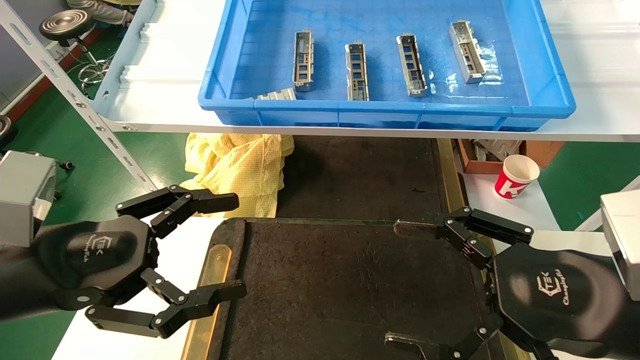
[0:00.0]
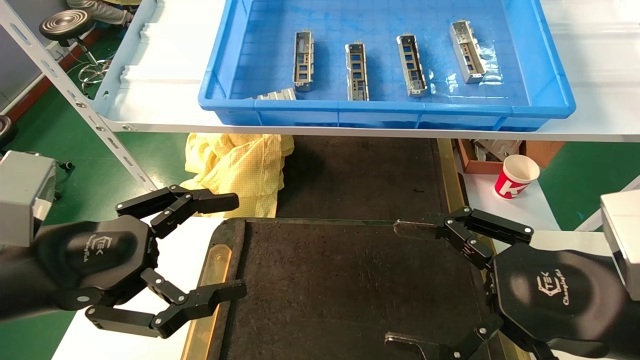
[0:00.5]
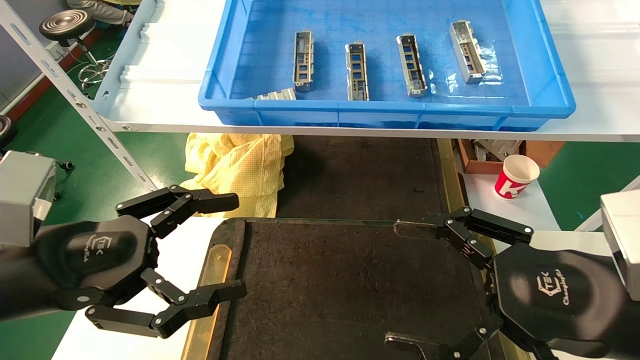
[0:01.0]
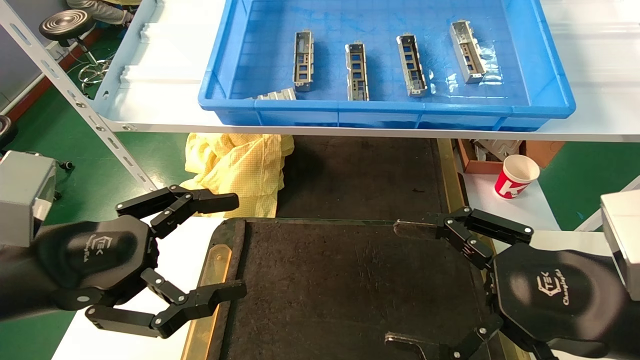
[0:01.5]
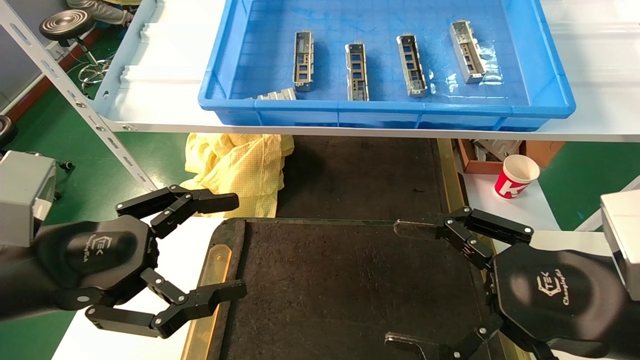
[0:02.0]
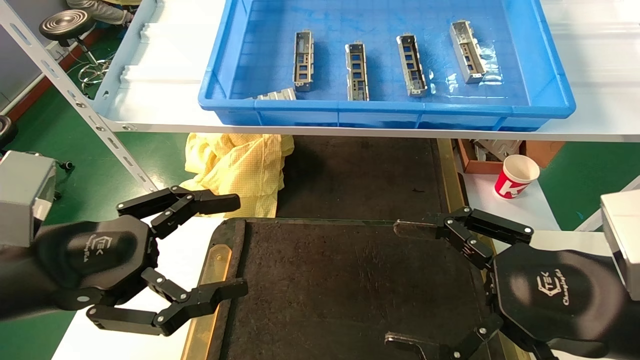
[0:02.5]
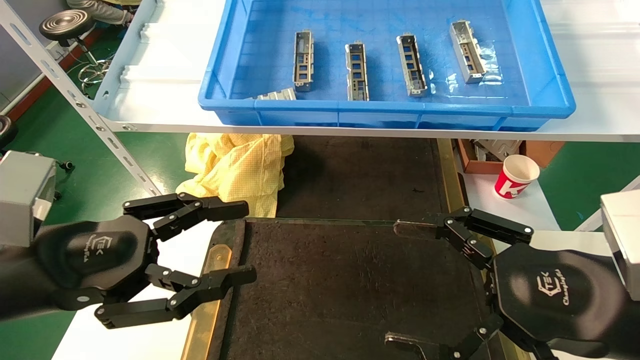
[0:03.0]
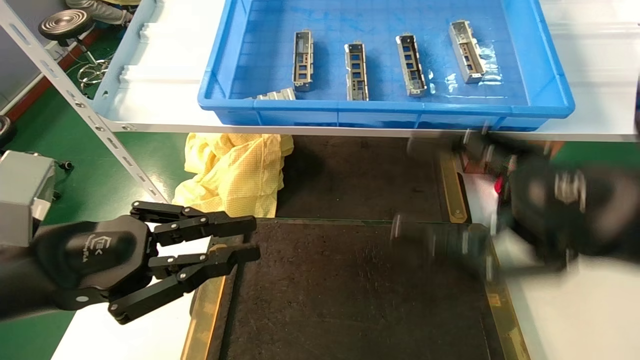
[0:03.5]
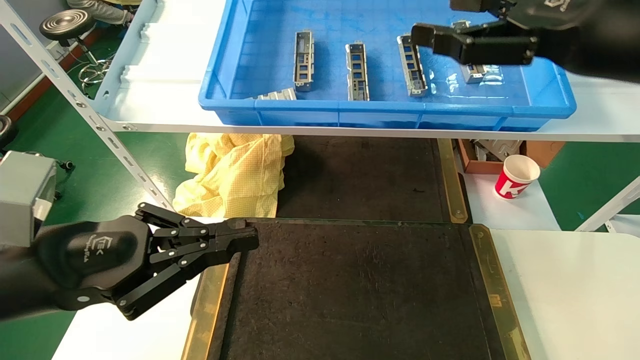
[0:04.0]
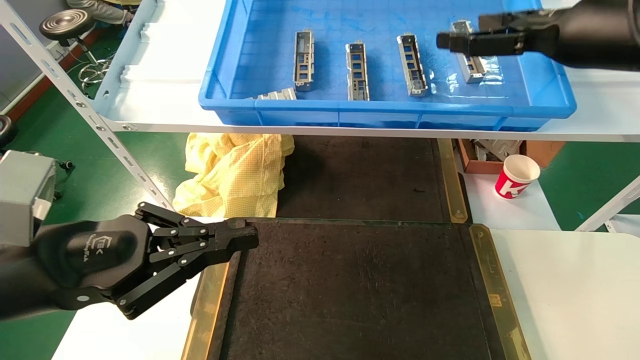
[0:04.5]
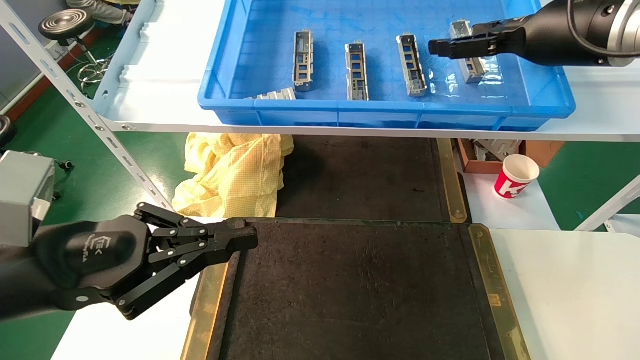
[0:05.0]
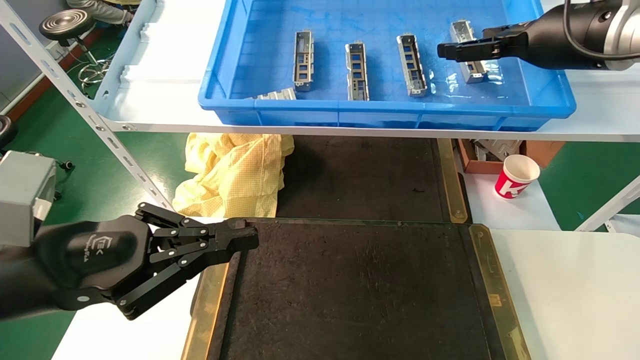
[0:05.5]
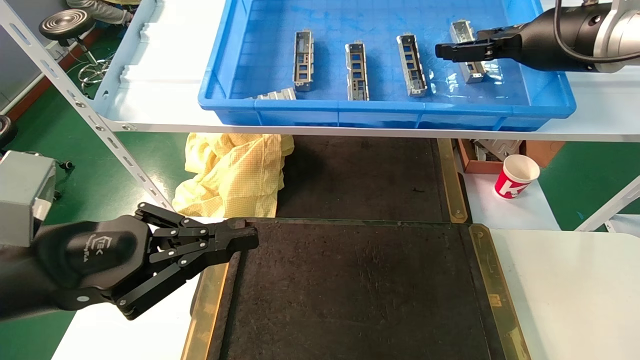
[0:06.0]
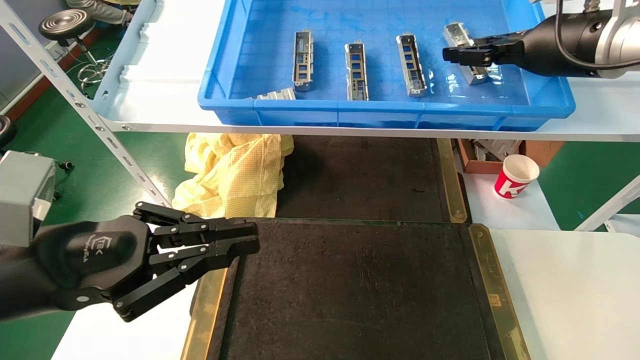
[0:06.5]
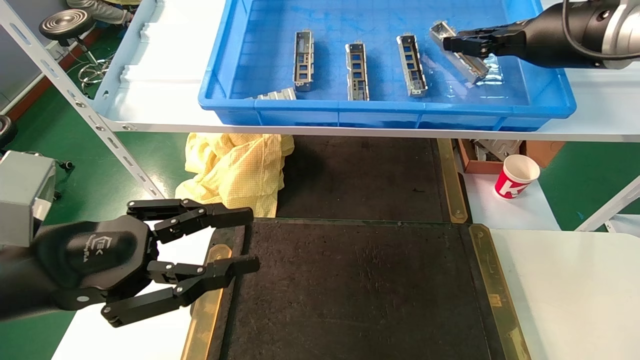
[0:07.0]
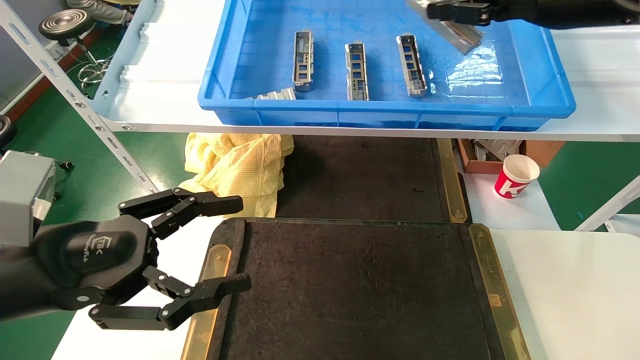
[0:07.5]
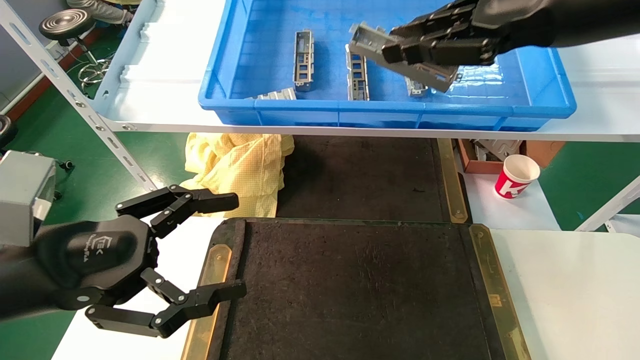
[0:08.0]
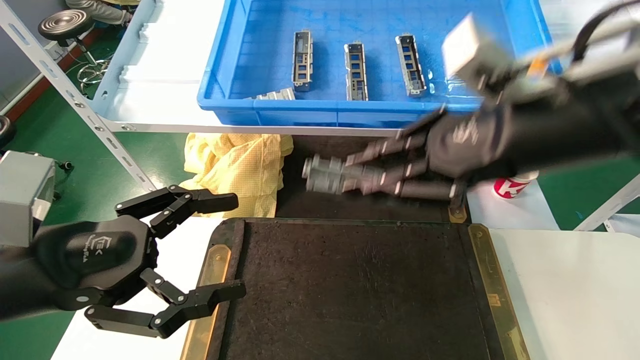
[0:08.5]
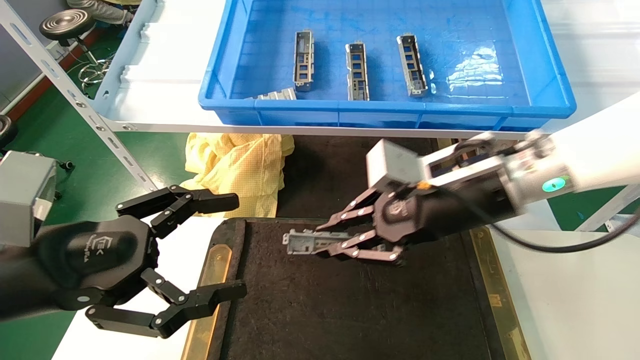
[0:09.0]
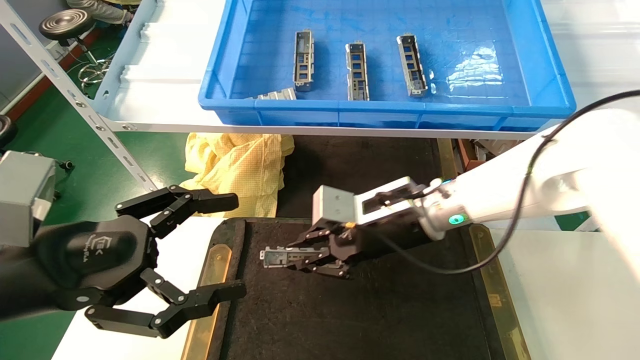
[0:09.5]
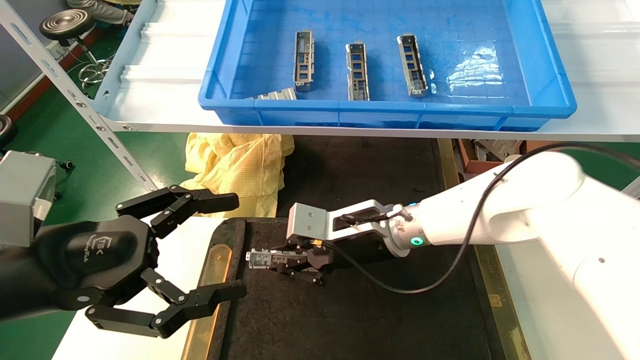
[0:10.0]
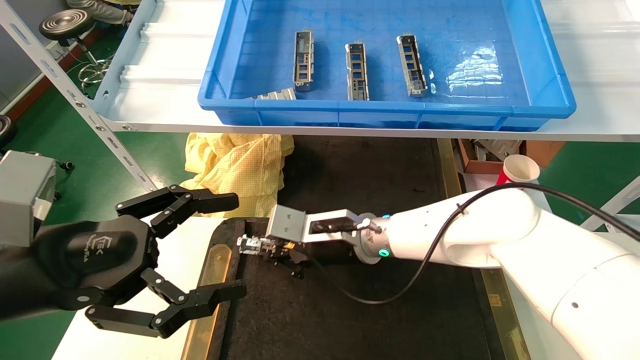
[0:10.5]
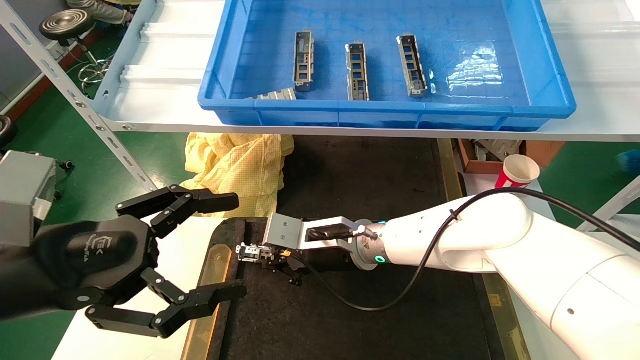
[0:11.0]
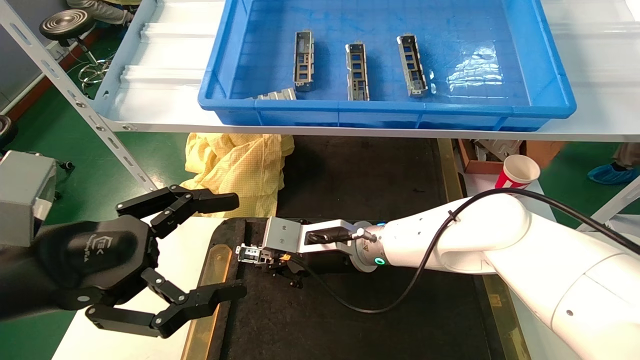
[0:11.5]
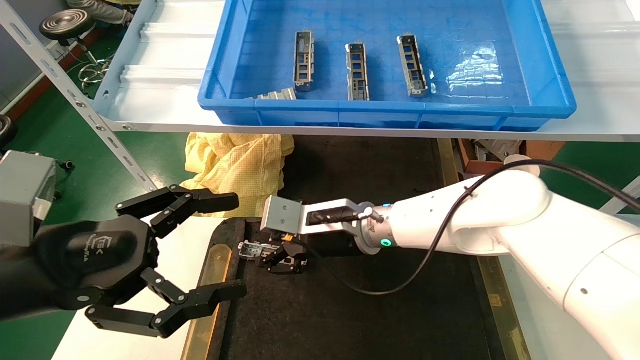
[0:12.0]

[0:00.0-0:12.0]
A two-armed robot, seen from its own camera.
Task of the whole recording: grasp the part and place them on the black container.
Step, 0:03.5 to 0:07.0: Pick up and lift the front USB bracket from the feeding area.
0:00.0 to 0:02.0: Both grippers stay put.
0:02.0 to 0:04.0: The left gripper closes its fingers. The right gripper moves upward and forward, roughly 20 cm.
0:04.0 to 0:06.0: The right gripper is displaced forward by approximately 10 cm.
0:06.0 to 0:08.0: The left gripper opens its fingers. Meanwhile the right gripper shifts roughly 15 cm backward and to the left, and closes its fingers.
0:08.0 to 0:10.0: The right gripper is displaced downward, to the left and forward by approximately 35 cm.
0:10.0 to 0:12.0: The grippers move only a little.

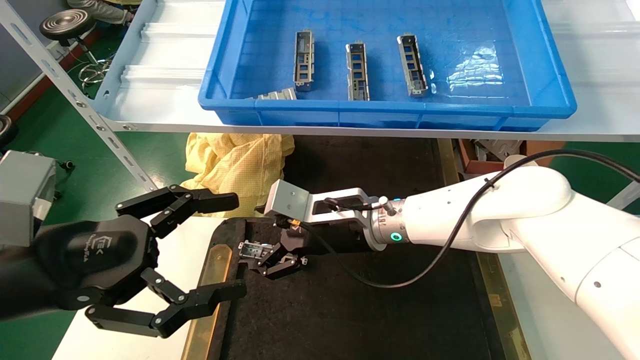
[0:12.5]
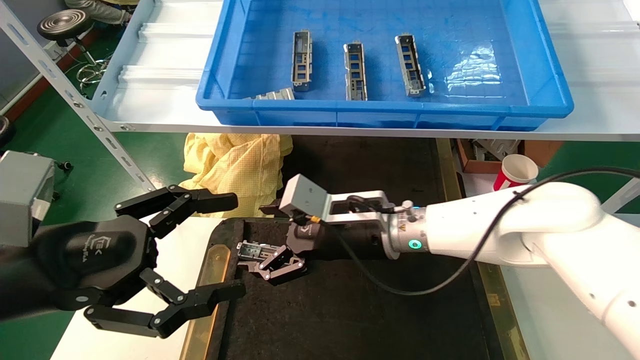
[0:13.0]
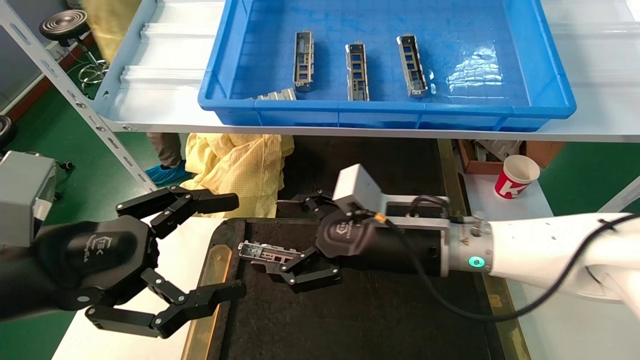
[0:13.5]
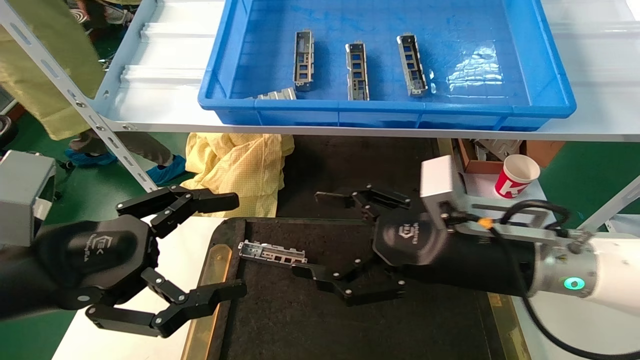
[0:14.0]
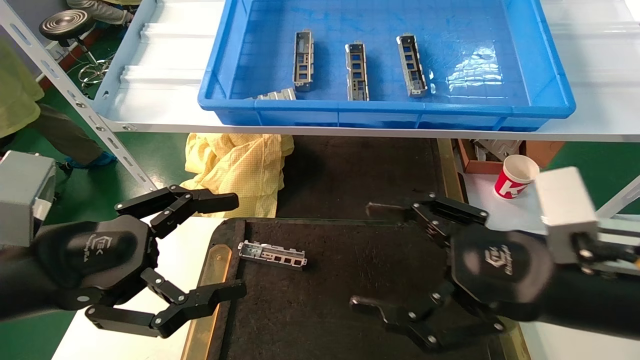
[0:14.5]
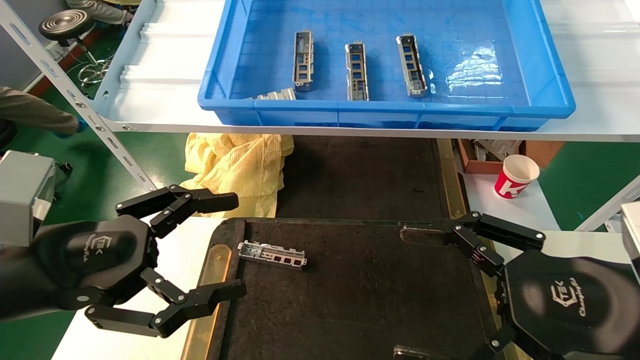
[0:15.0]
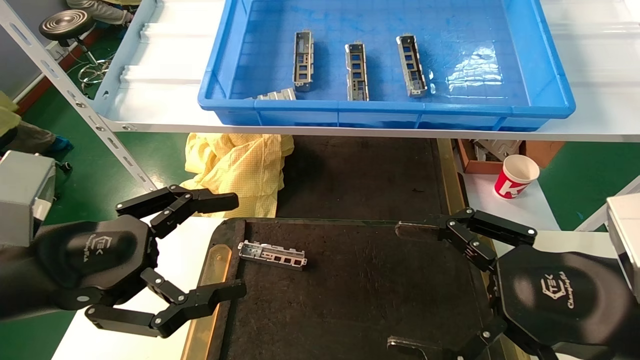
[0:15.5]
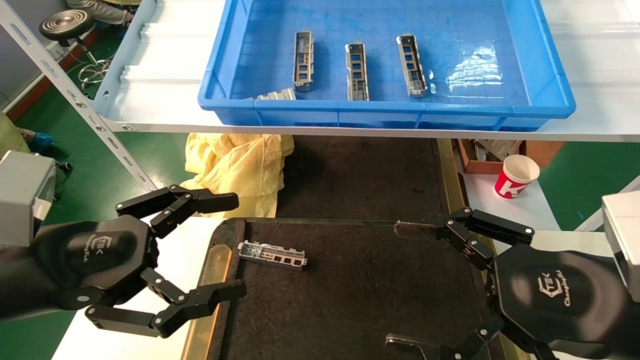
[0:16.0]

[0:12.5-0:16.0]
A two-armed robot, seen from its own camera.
Task of the whole recording: grasp the part and place them on the black container.
0:12.5 to 0:14.5: The right gripper moves to the right and backward, roughly 25 cm.
0:14.5 to 0:16.0: The grippers move only a little.
